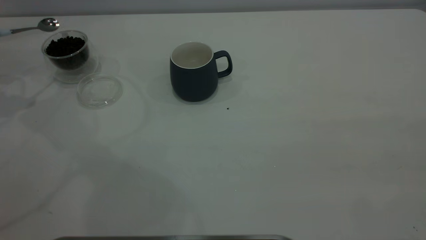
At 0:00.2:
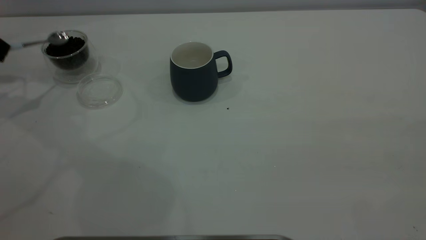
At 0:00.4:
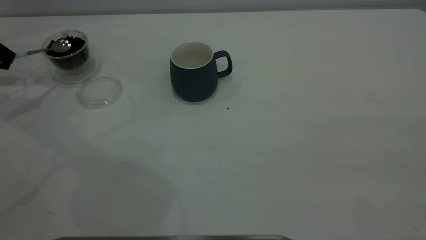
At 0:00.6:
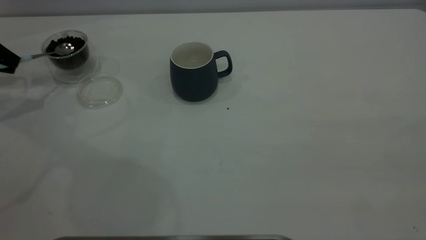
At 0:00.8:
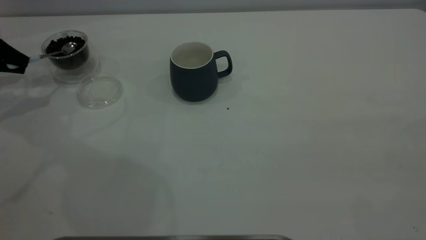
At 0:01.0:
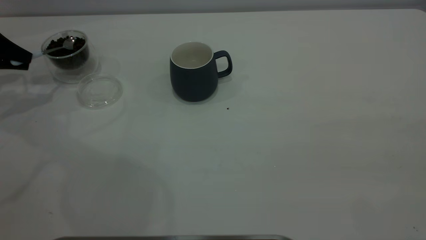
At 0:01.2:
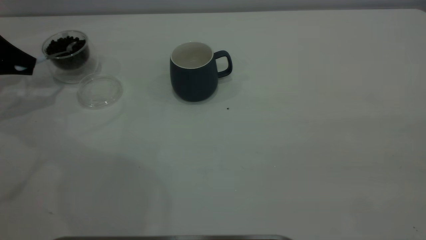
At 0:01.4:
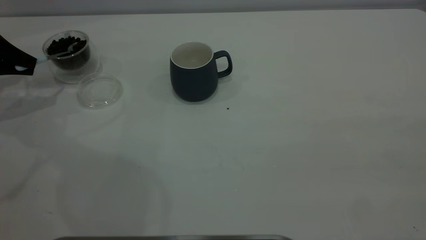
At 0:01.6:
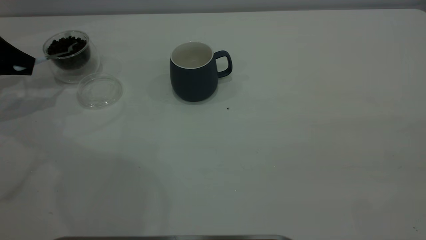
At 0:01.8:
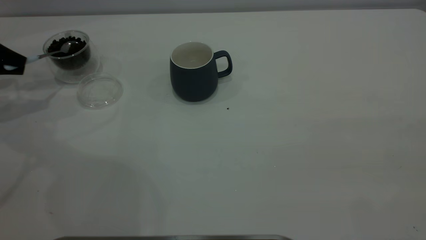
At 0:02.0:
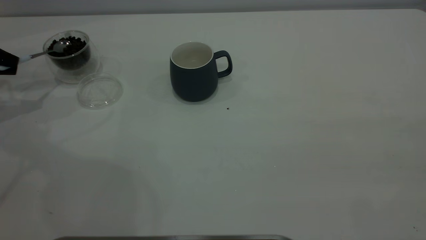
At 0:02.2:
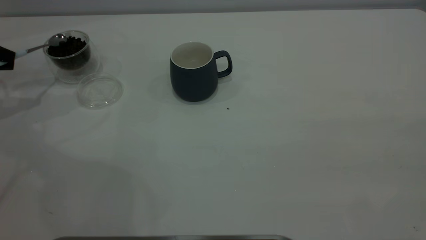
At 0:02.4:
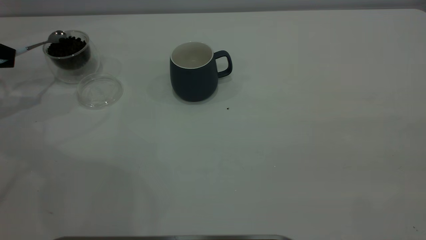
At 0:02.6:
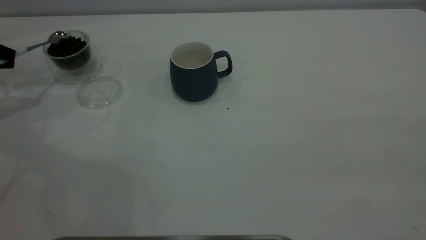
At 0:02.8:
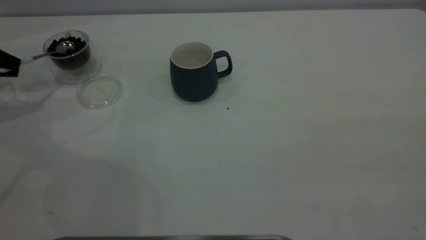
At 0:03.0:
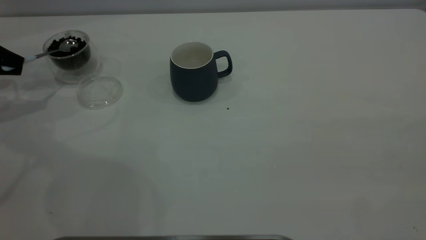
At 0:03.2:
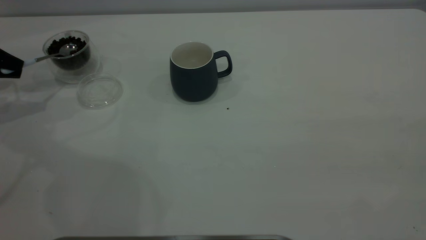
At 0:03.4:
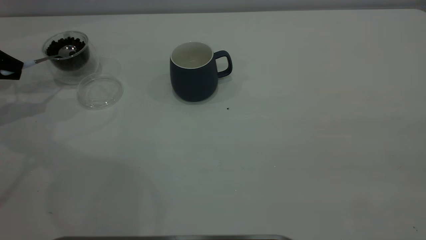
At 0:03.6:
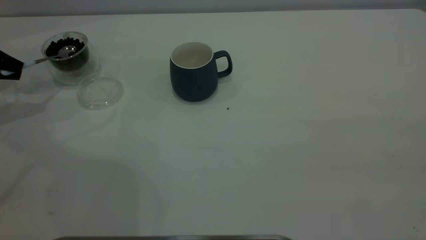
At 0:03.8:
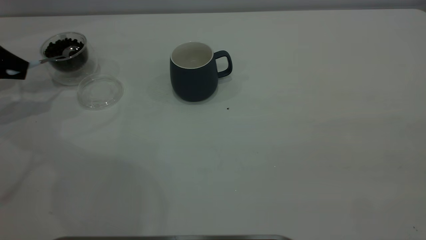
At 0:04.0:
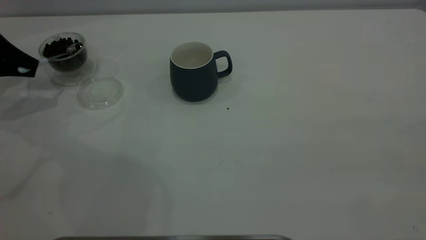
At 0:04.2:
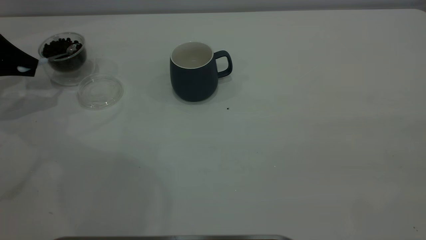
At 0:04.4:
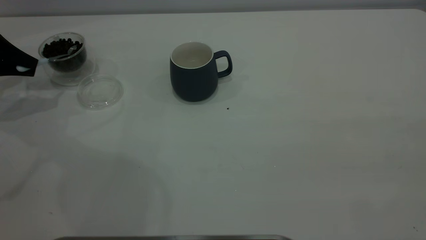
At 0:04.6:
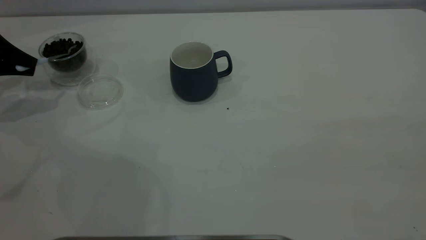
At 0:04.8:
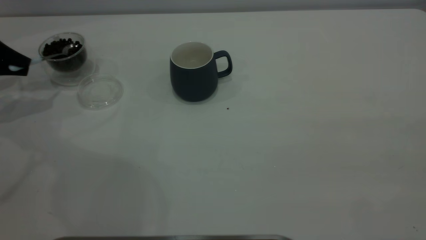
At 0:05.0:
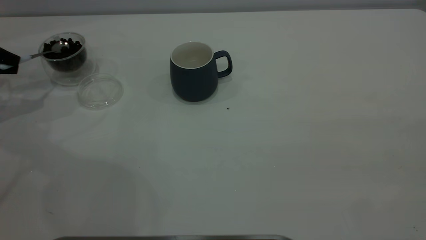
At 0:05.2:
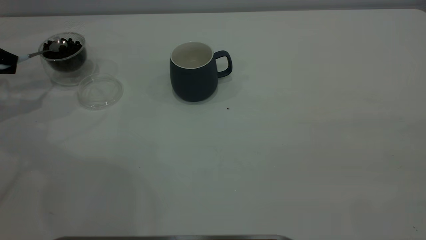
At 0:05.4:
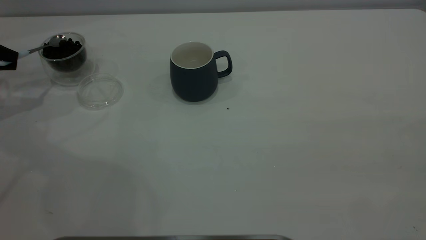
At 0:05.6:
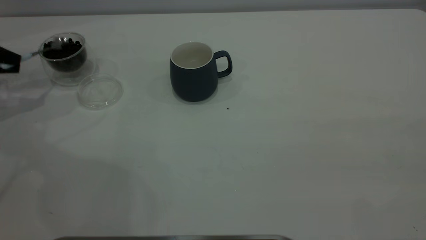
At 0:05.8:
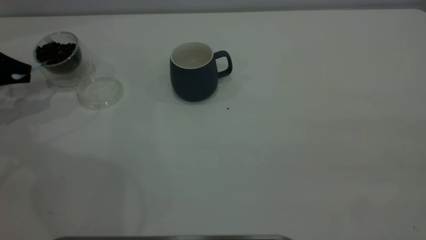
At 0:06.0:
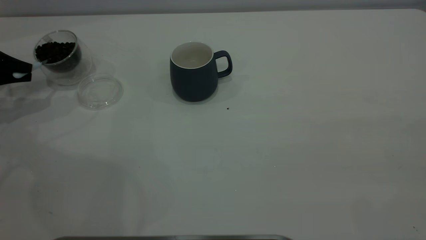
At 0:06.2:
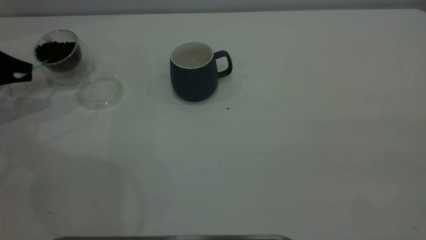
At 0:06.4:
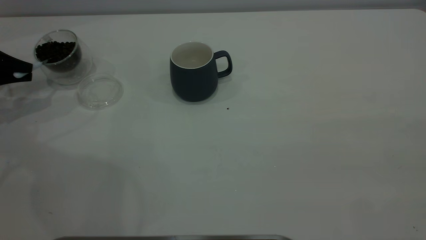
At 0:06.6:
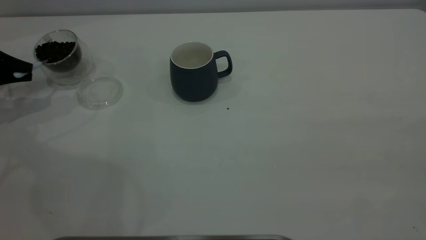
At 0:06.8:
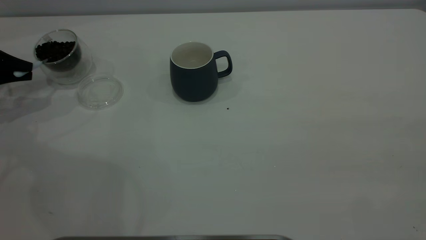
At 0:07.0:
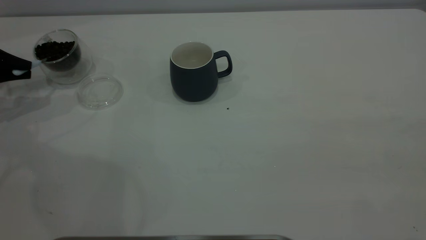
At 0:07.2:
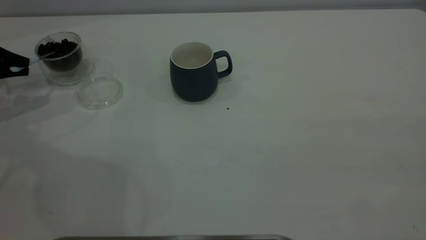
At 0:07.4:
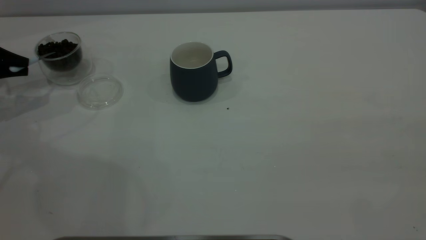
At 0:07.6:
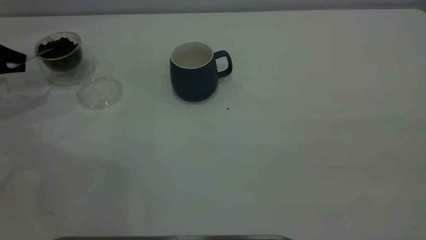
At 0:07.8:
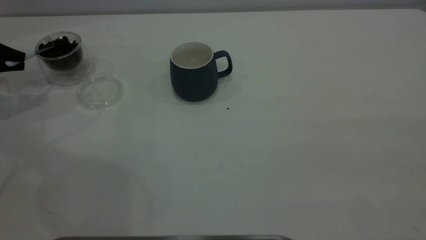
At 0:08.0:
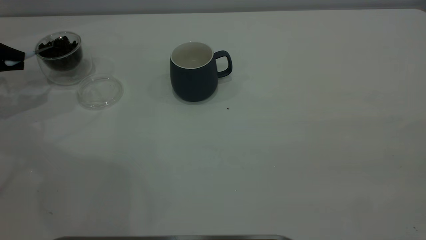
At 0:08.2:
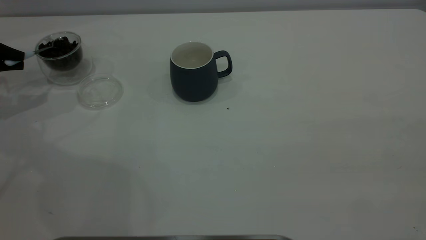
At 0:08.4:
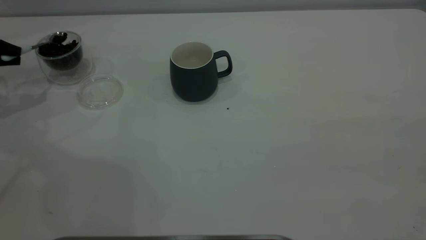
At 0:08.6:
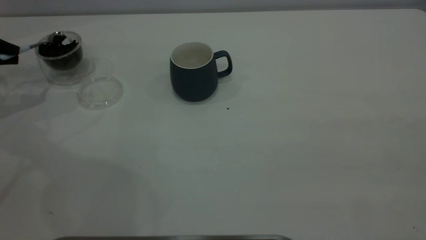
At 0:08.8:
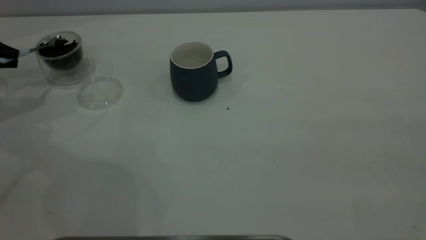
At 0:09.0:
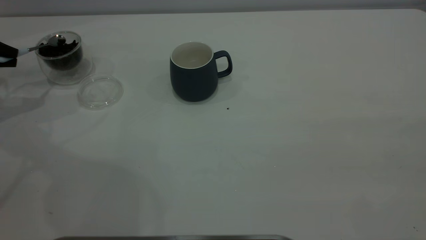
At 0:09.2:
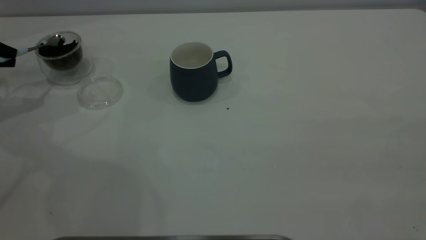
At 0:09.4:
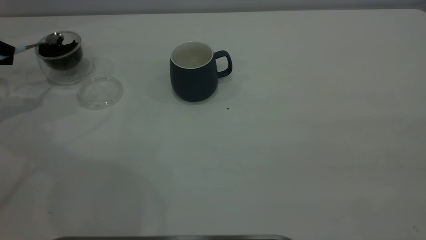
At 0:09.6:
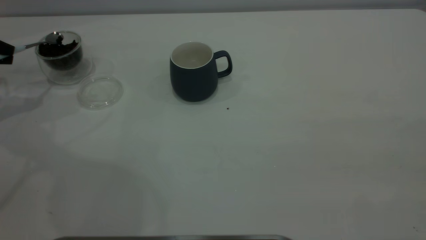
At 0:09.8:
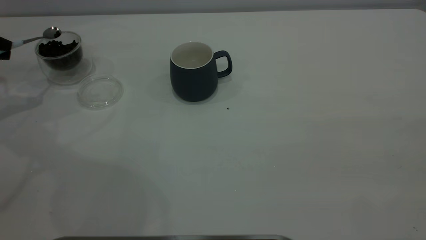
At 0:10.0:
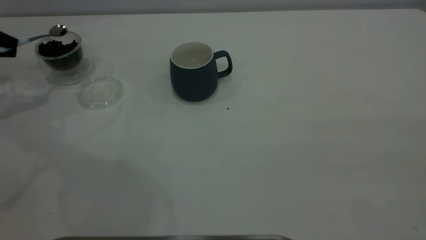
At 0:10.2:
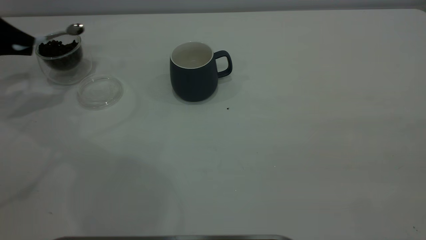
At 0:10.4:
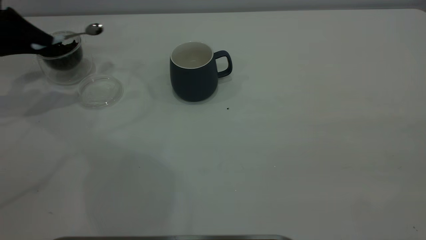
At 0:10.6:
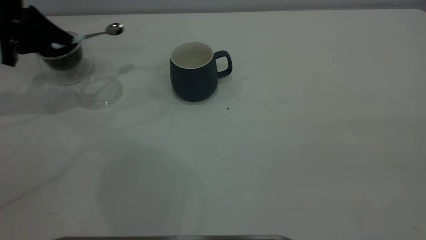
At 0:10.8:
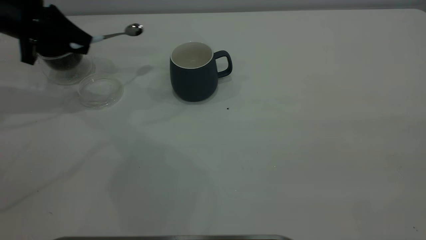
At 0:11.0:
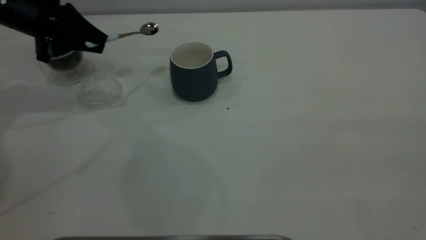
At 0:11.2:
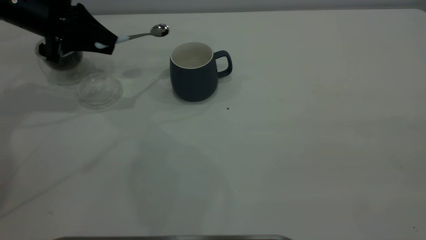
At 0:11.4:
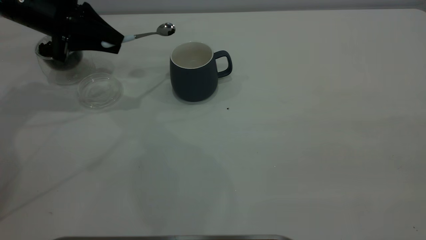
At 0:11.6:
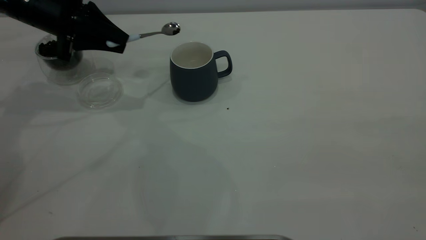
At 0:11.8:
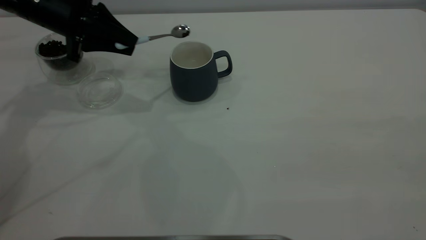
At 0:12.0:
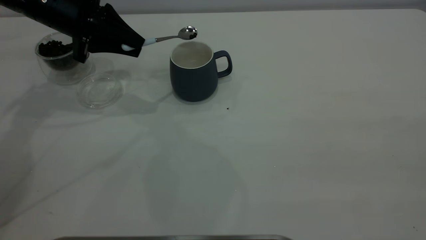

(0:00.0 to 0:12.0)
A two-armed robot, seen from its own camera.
Task of the whole recording: the right gripper place the grey cup in the center of the table, the left gripper take the blue spoon from the cup lid and scoop out the coffee beans from the coffee cup and put them into the grey cup, the left gripper put the spoon back into the cup lid.
0:00.0 - 0:01.6: The left gripper heads downward, covering approximately 10 cm.
0:03.0 - 0:07.6: There are only small adjustments of the grippers.
0:09.0 - 0:10.4: The left gripper heads to the right, covering approximately 5 cm.
0:10.4 - 0:12.0: The left gripper heads to the right, covering about 15 cm.

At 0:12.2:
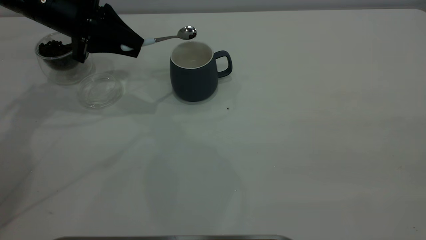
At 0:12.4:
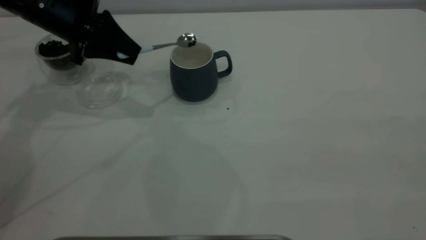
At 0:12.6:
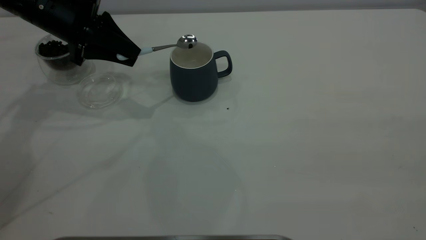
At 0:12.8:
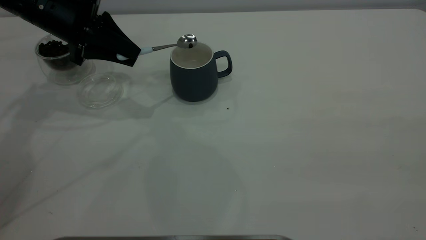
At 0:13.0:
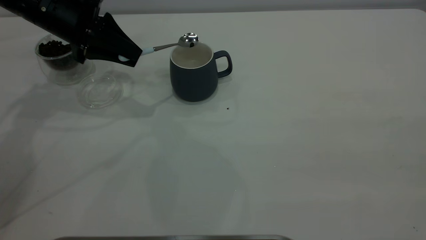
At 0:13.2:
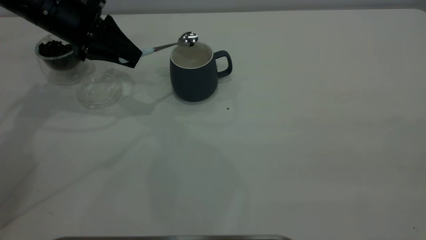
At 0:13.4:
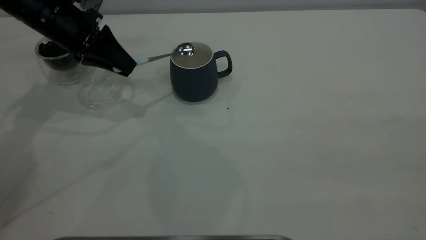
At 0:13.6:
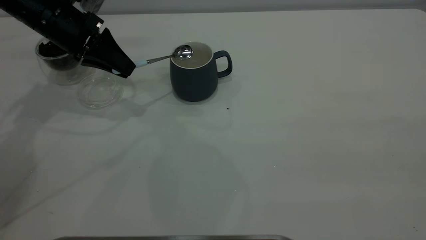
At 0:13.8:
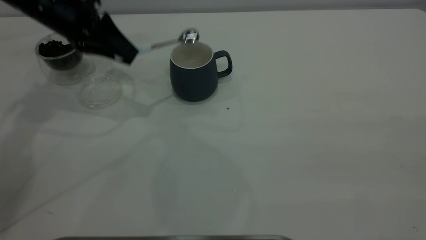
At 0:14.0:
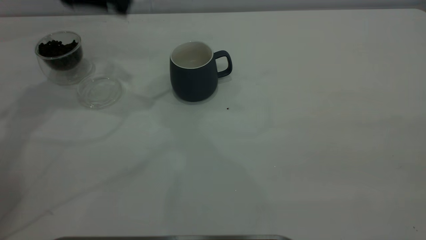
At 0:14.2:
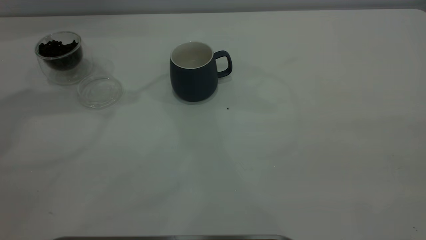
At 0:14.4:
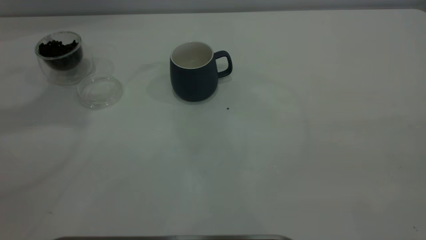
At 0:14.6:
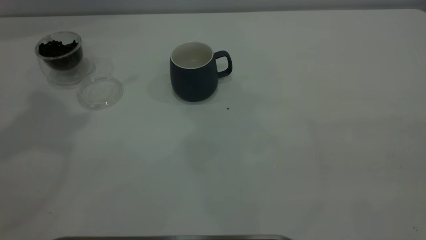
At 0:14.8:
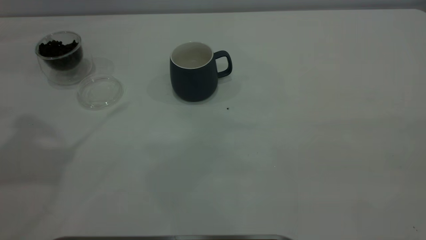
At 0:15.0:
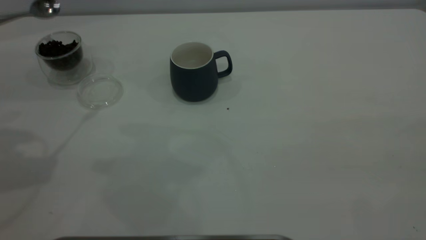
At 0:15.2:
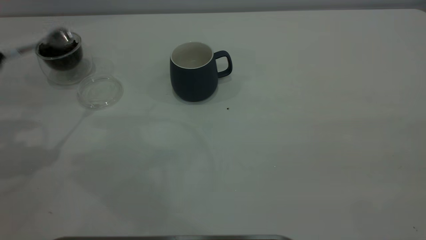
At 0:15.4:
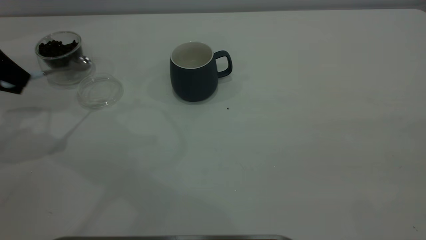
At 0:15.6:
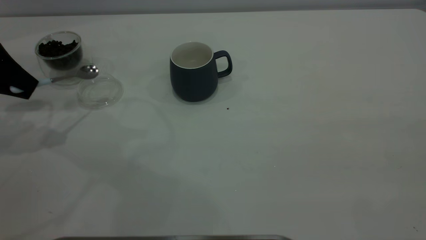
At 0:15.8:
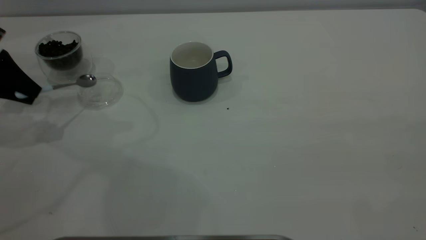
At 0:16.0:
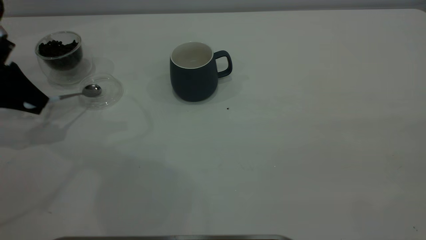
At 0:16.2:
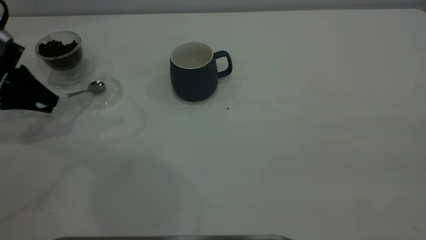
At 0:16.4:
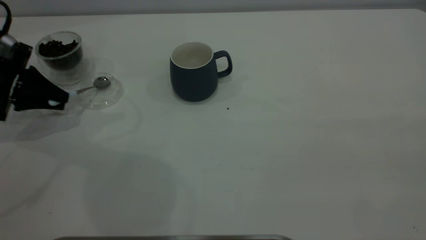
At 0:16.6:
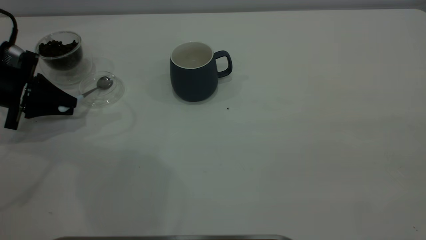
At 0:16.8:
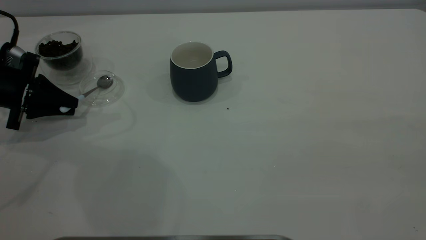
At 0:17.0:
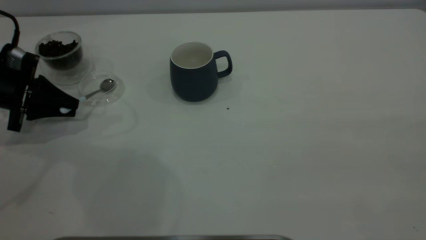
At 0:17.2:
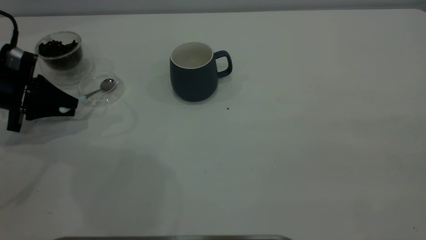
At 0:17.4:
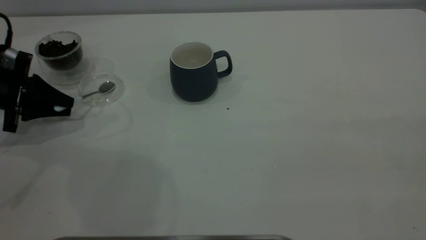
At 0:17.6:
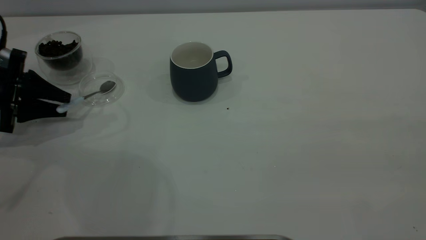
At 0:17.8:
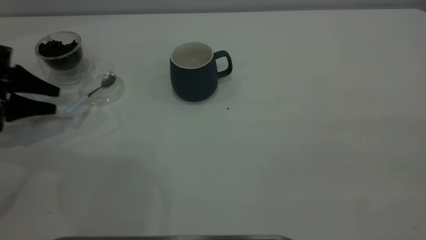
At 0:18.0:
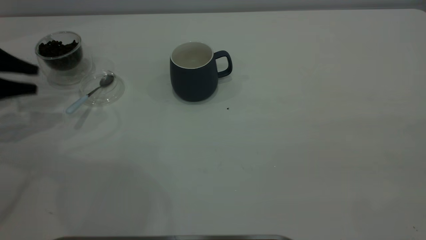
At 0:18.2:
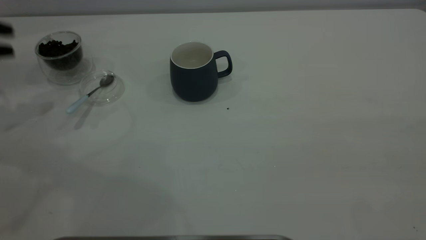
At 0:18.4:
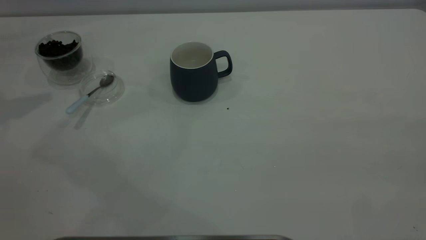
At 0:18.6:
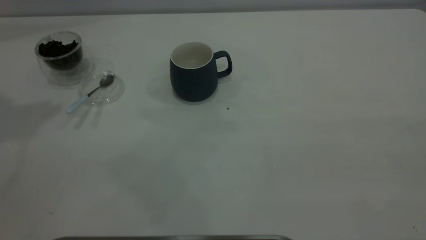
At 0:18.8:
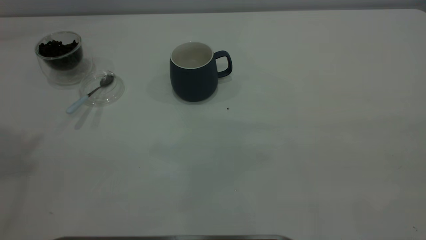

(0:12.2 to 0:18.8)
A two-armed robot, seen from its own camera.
Task of the whole recording: the right gripper place the grey cup in the center of the table, the left gripper take the blue spoon from the cup lid and scoop out the coffee beans from the coffee cup and put them into the grey cup, the left gripper put the spoon back into the cup lid.
Step, 0:14.0 - 0:18.0: Place the spoon back in its original place.
0:13.8 - 0:15.4: The left gripper goes some 15 cm to the left and backward, and travels upward and back again, about 25 cm each way.
0:15.4 - 0:17.2: The left gripper goes about 10 cm downward.
0:17.2 - 0:18.8: The left gripper is displaced upward by approximately 40 cm, and opens.
